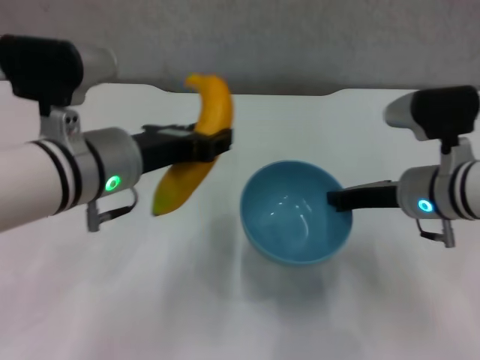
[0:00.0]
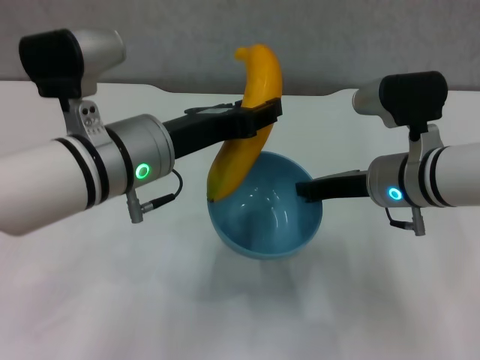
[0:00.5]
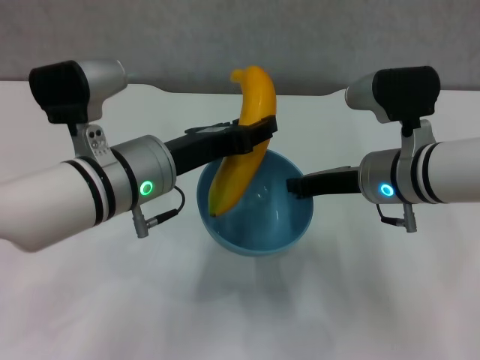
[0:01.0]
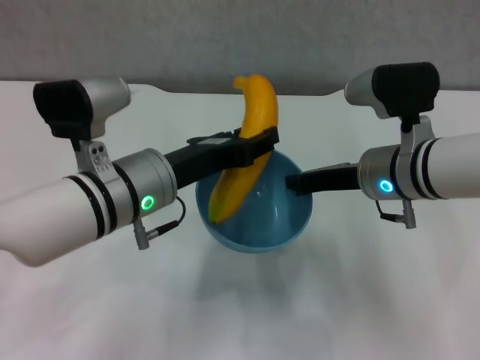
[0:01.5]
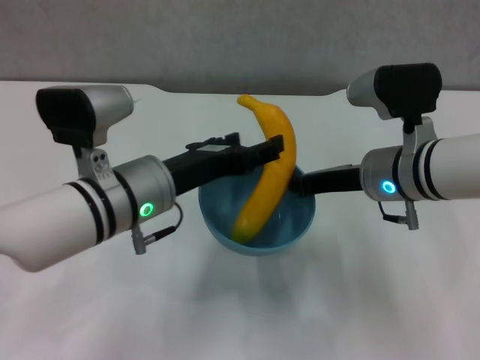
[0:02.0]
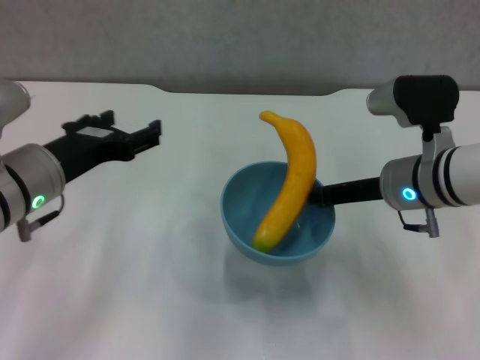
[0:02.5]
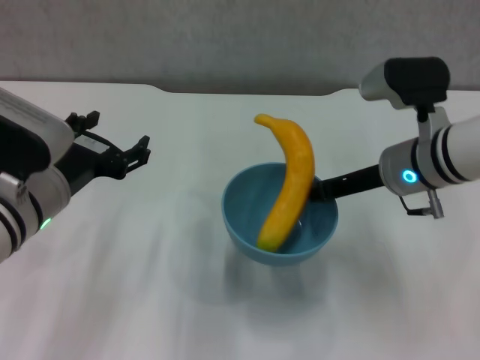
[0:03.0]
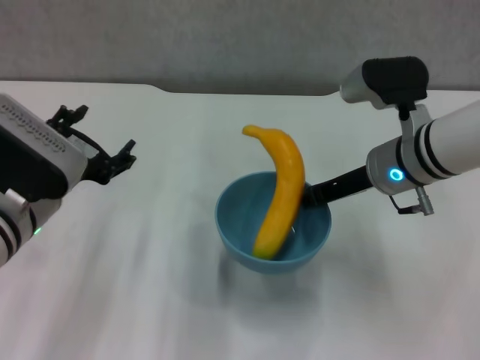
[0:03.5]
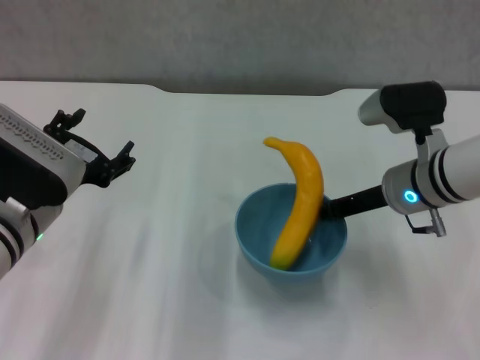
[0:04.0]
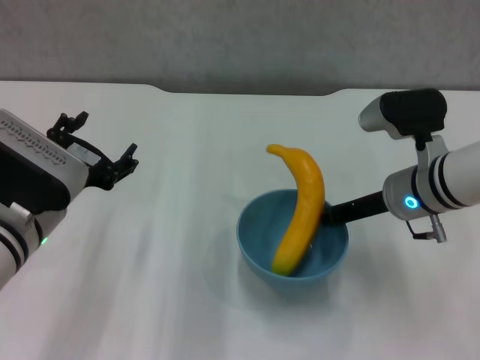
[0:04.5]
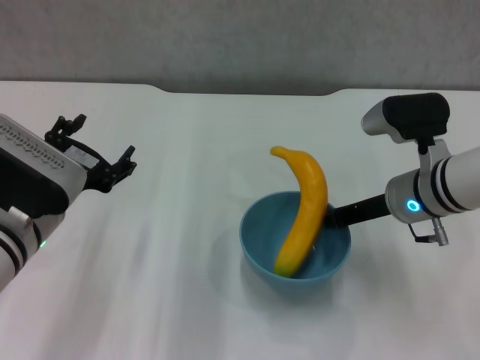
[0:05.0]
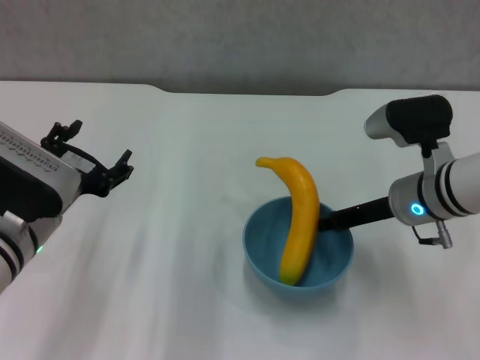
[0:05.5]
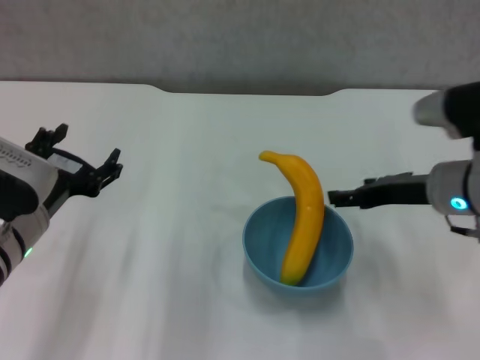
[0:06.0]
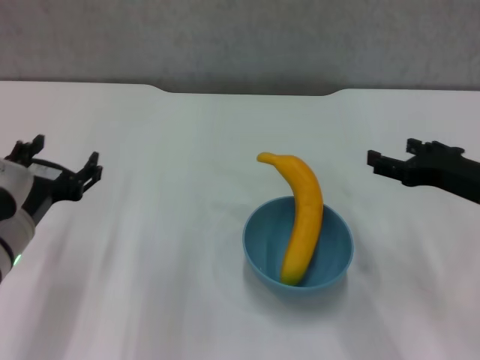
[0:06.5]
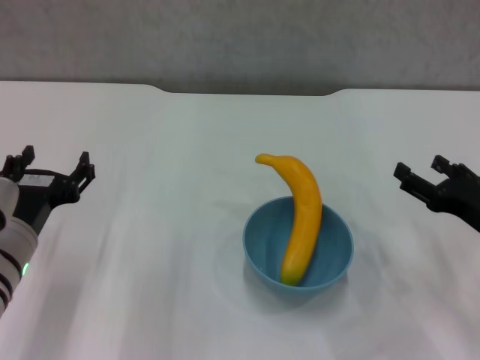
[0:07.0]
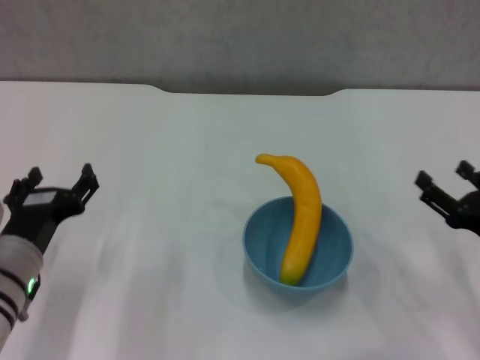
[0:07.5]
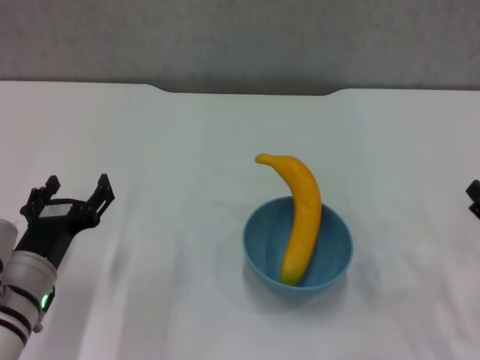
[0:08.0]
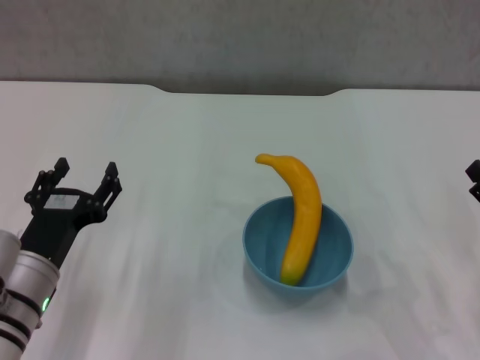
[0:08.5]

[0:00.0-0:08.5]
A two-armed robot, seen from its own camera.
Step, 0:00.0 to 0:01.5: Place the banana in the blue bowl with left gripper.
Step, 0:02.0 to 0:05.5: Place the bowl on the table with right gripper.
0:00.0 to 0:02.0: The left gripper changes place by about 5 cm, and opens its fingers.
0:02.0 to 0:04.0: The left gripper goes roughly 10 cm to the left.
0:04.0 to 0:06.5: The right gripper is displaced to the right and backward by about 10 cm, and opens.
0:06.5 to 0:08.5: The left gripper goes approximately 5 cm downward; the right gripper goes approximately 15 cm backward, downward and to the right.
